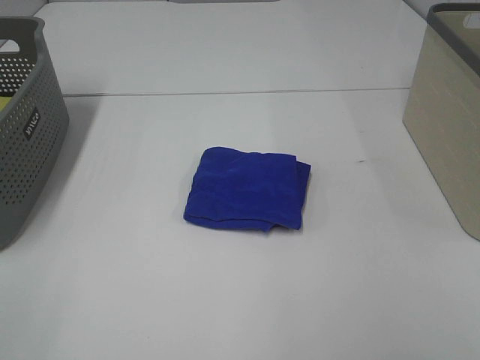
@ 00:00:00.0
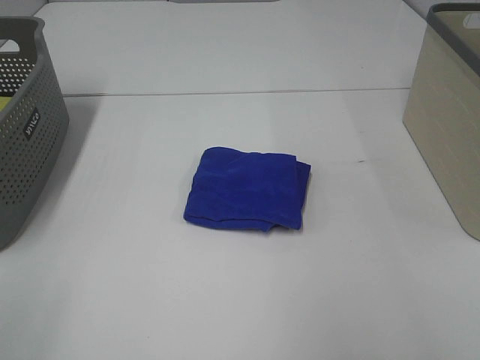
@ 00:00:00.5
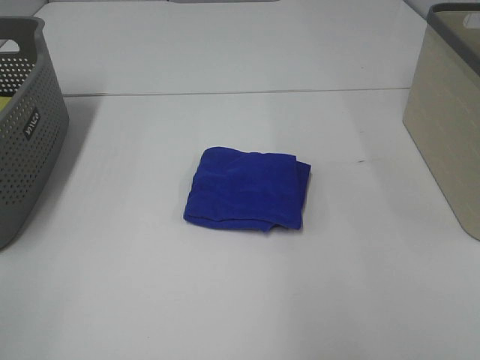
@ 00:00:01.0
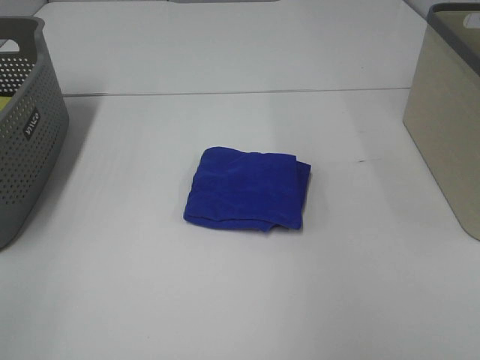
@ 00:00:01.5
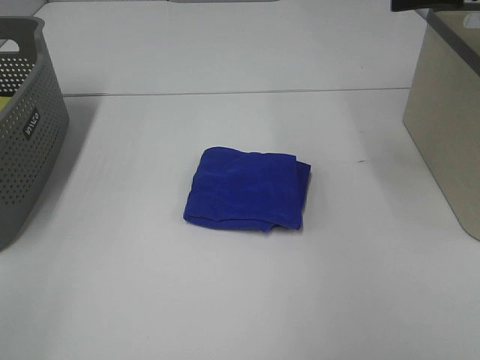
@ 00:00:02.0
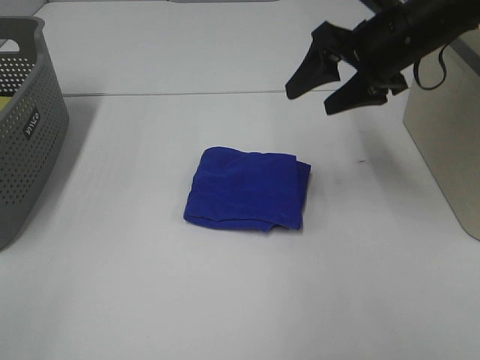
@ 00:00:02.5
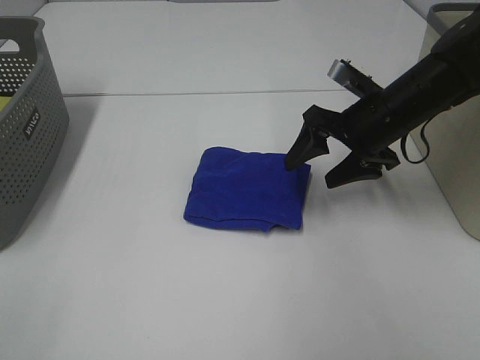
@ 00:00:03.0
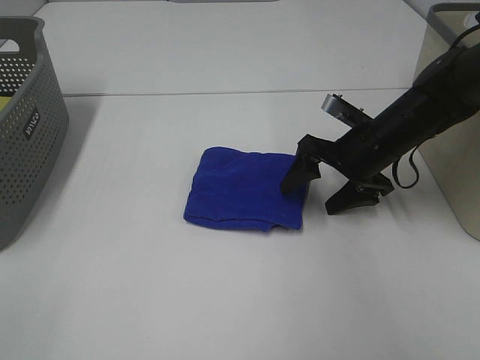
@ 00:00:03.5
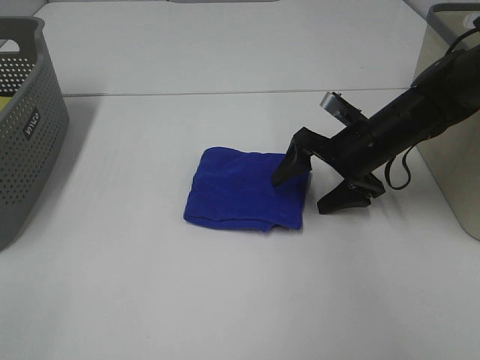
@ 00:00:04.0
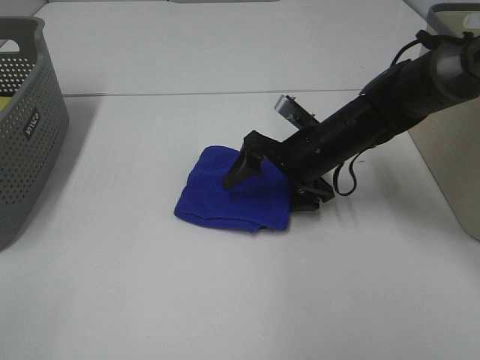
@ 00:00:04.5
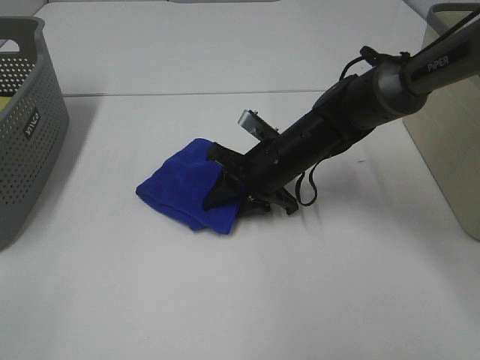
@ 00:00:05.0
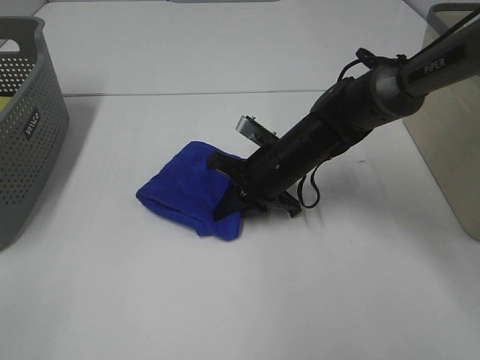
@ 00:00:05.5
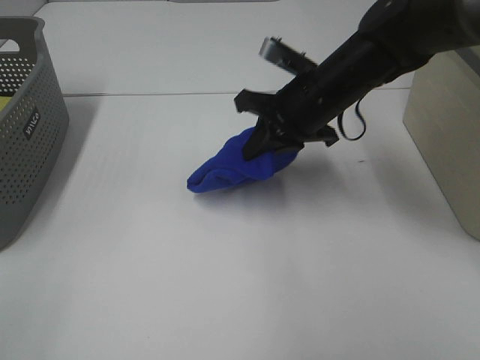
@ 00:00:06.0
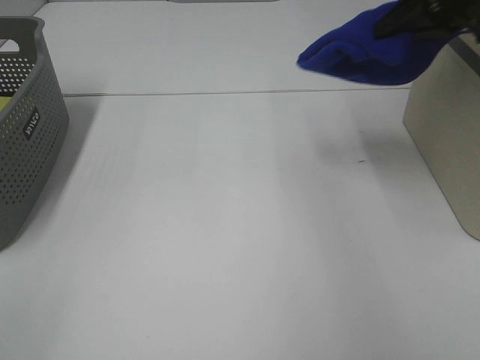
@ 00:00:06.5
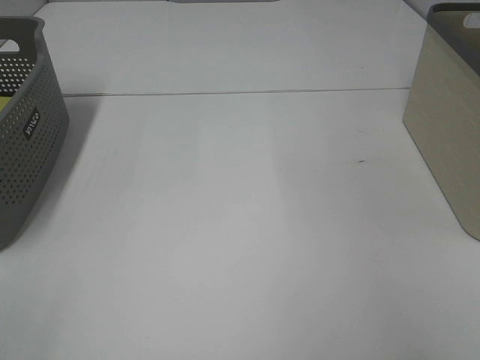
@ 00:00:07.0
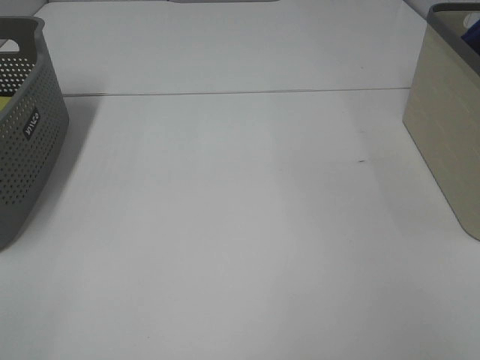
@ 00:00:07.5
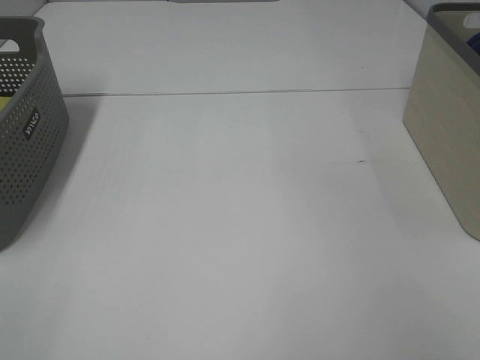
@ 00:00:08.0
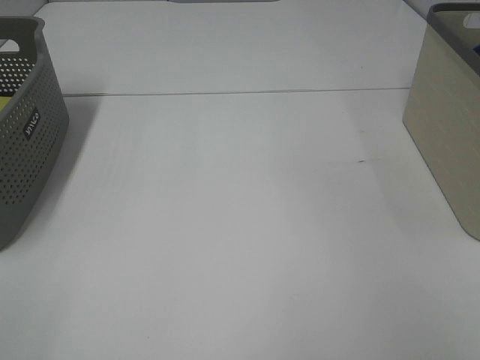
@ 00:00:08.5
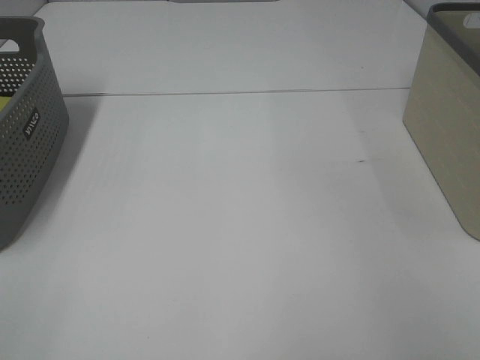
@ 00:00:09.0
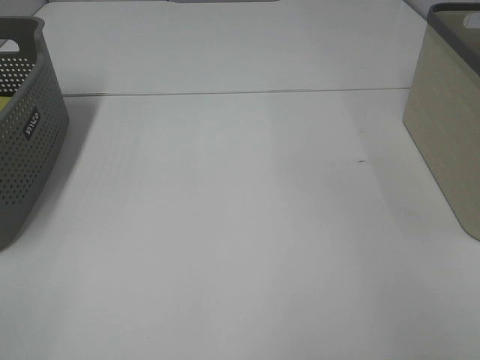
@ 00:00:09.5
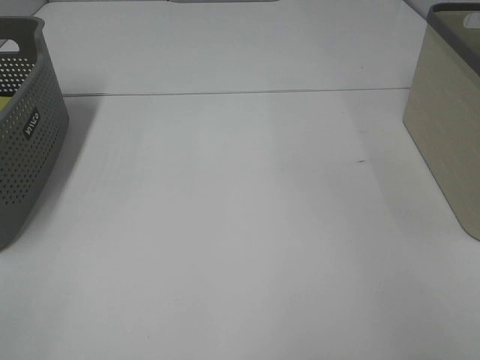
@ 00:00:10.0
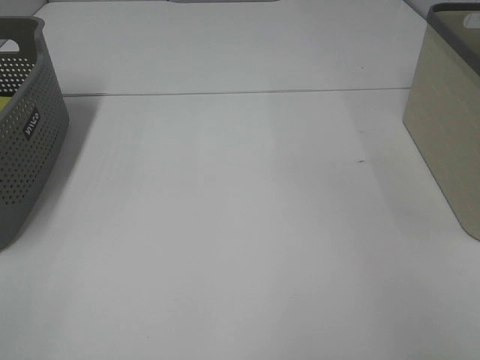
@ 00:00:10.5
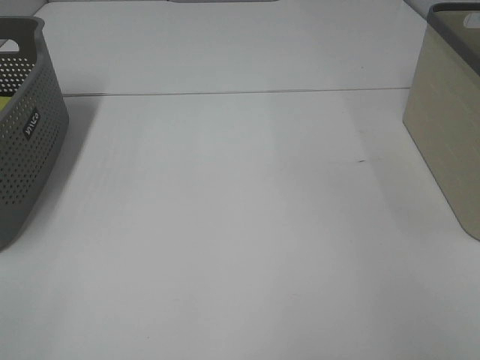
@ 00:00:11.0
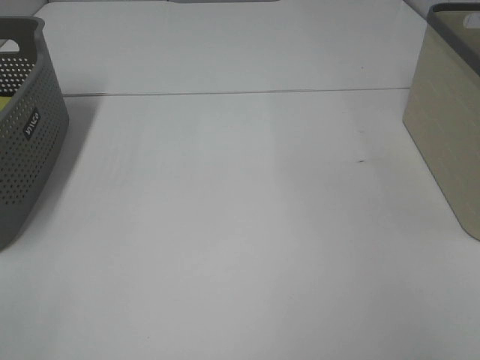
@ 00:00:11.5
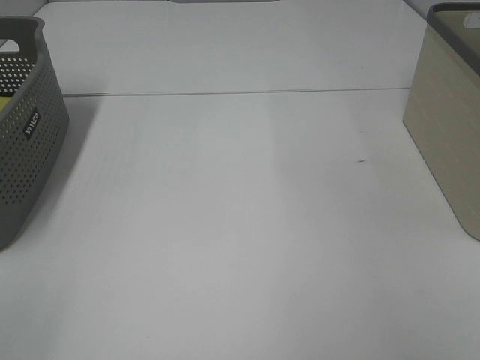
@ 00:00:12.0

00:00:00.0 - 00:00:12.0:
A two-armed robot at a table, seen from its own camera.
Step, 00:00:00.0 - 00:00:05.0: Right hand: grab the folded blue towel.
Step, 00:00:05.5 - 00:00:11.5: Right hand: place the blue towel in right basket.
00:00:00.0 - 00:00:02.0: The right gripper heads forward, covering approximately 40 cm.
00:00:02.0 - 00:00:04.0: The right gripper is displaced downward by approximately 25 cm.
00:00:04.0 - 00:00:06.0: The right gripper is displaced upward and to the left by some 10 cm, and closes up.
00:00:06.0 - 00:00:08.0: The right gripper moves to the right, about 30 cm.

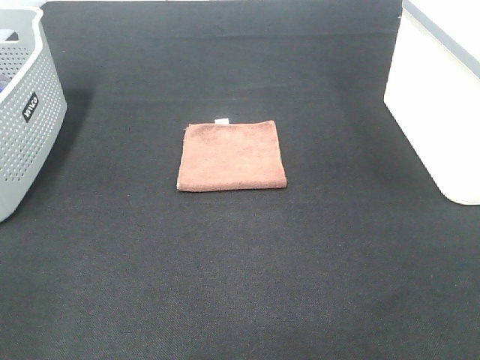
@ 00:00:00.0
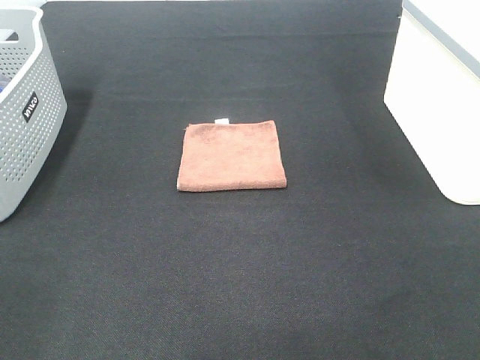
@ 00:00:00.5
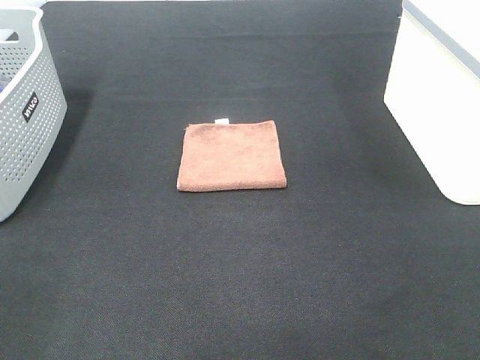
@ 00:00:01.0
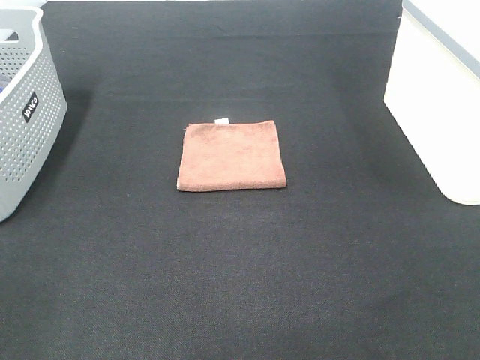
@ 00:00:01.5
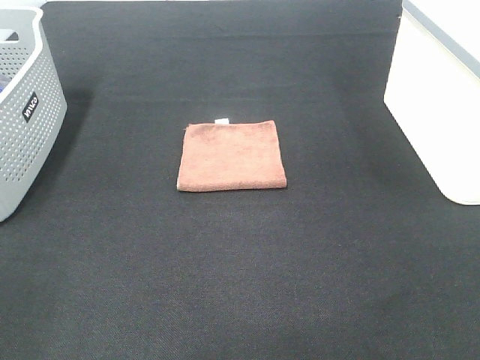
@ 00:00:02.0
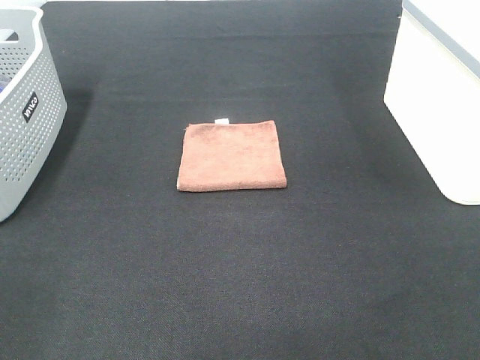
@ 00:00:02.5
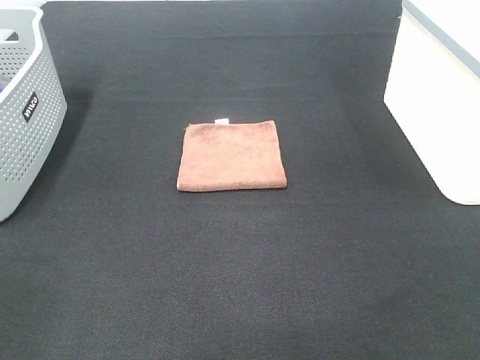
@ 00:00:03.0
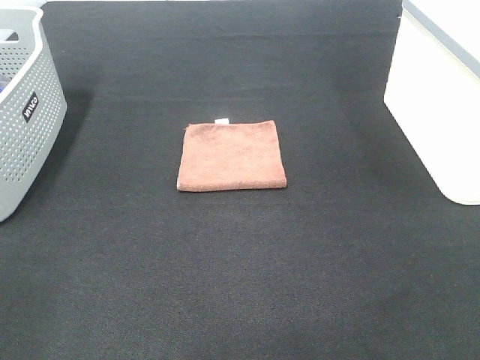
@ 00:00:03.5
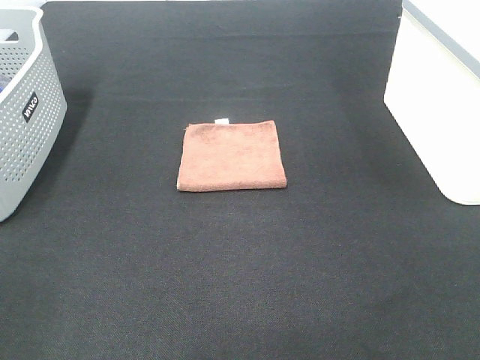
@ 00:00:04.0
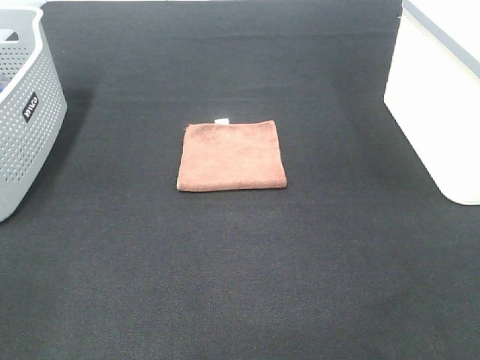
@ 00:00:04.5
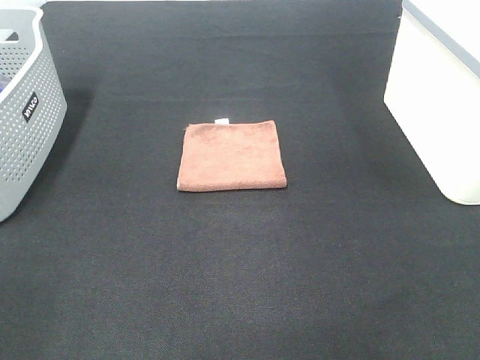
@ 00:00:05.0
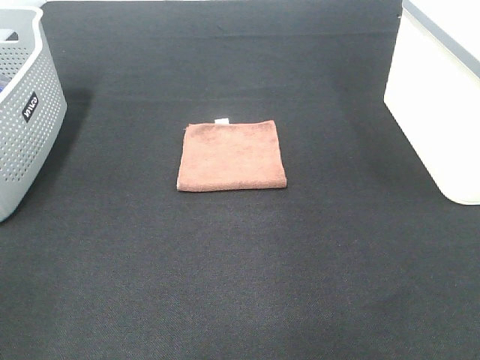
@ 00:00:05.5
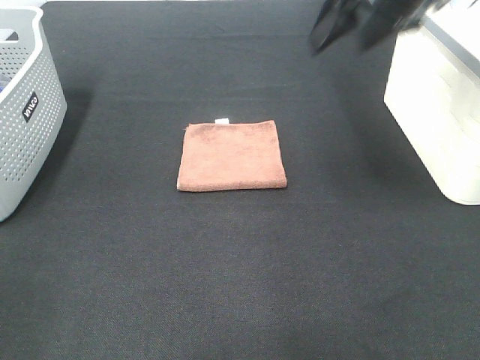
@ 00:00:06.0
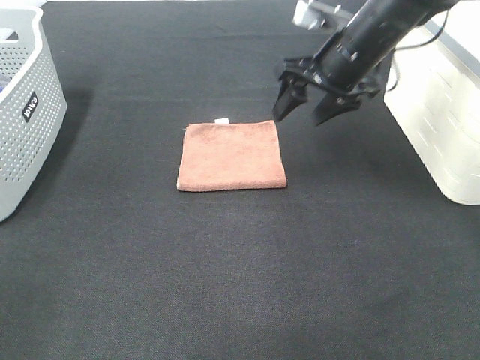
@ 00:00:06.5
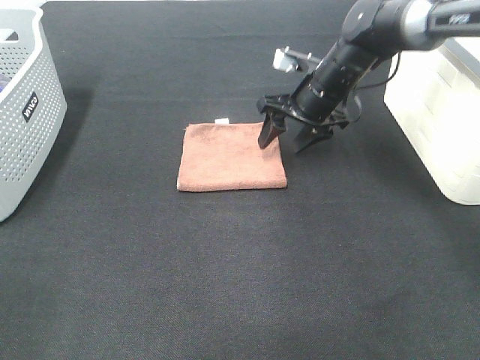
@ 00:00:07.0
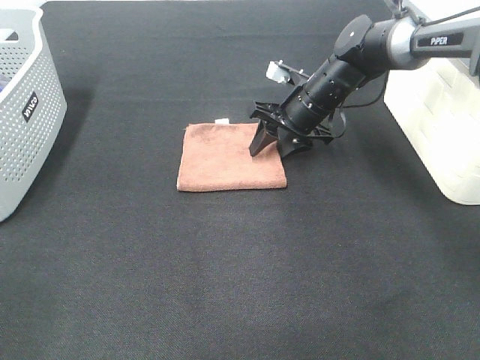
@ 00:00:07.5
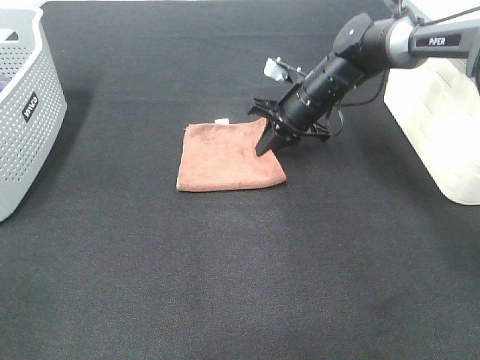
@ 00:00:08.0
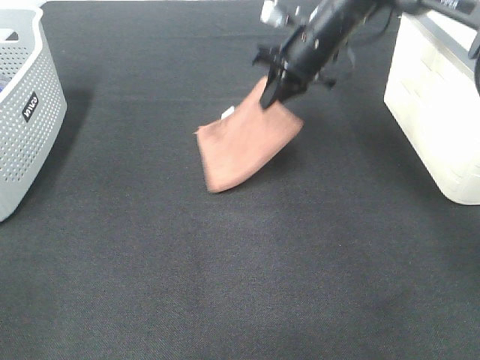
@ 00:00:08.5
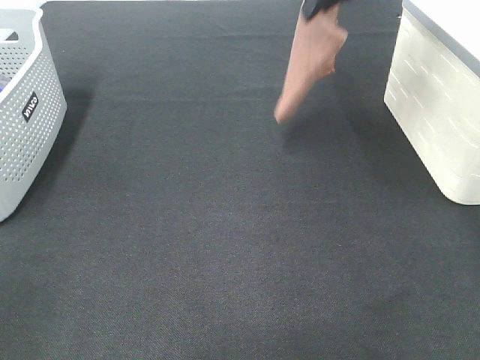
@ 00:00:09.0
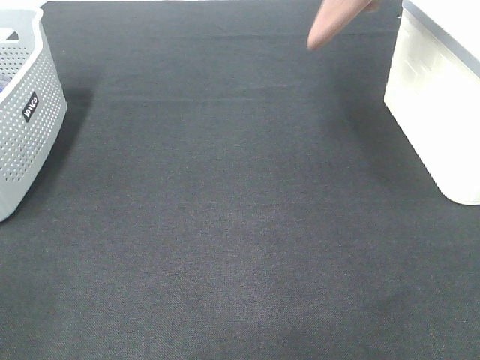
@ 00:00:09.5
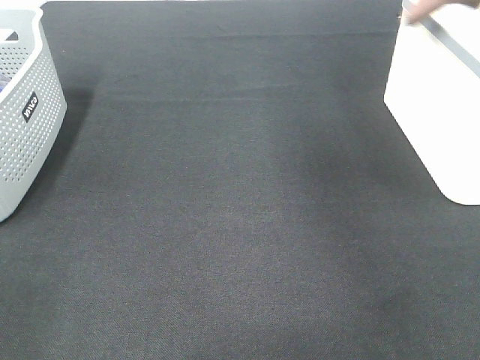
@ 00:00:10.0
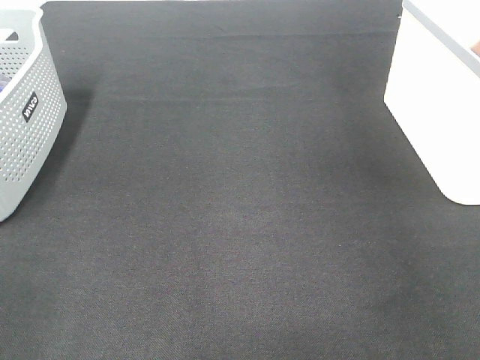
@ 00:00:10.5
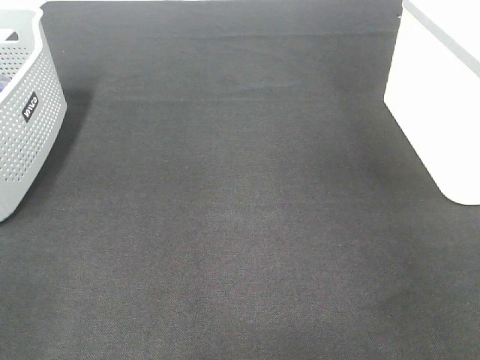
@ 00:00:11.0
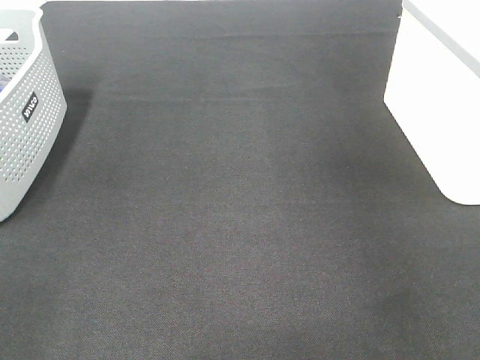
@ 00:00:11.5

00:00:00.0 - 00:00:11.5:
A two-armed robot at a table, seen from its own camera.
Step, 00:00:00.0 - 00:00:08.0: Right hand: grab the folded brown towel.
Step, 00:00:08.5 - 00:00:11.0: Right hand: place the brown towel in right basket.
00:00:00.0 - 00:00:04.0: Neither gripper changes place.
00:00:04.0 - 00:00:06.0: The right gripper goes roughly 35 cm forward.
00:00:06.0 - 00:00:07.5: The right gripper travels downward and forward by some 25 cm.
00:00:07.5 - 00:00:09.5: The right gripper is displaced upward by some 35 cm, and closes its fingers.
00:00:09.5 - 00:00:11.5: The right gripper shifts some 15 cm to the right, and opens up.

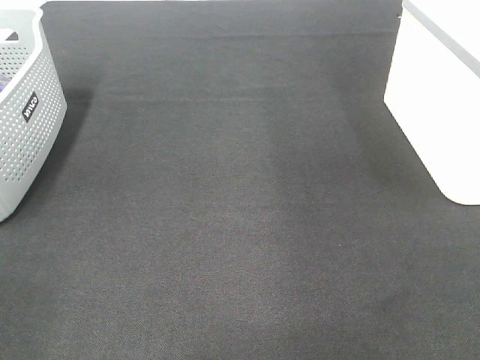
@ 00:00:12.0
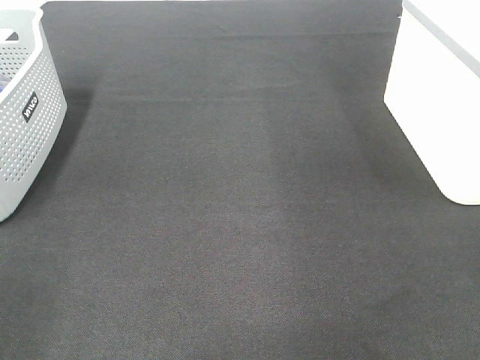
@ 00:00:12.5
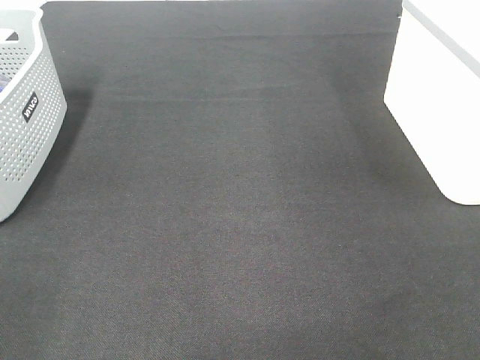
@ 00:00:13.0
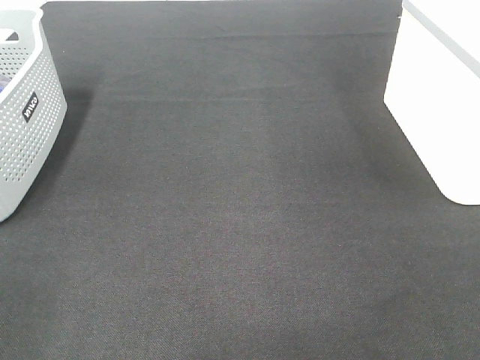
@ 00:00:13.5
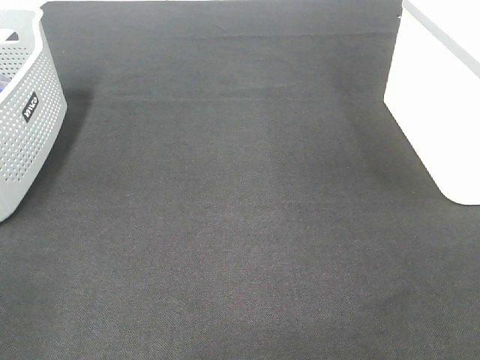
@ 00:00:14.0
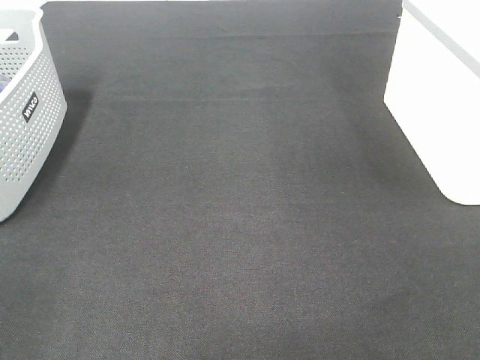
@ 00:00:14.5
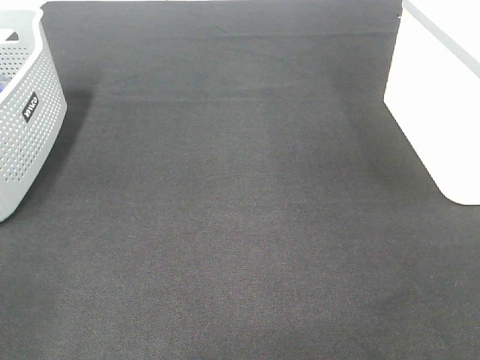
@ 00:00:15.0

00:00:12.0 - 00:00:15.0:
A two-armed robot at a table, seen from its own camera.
00:00:13.5 - 00:00:15.0: Both grippers stay about where they are.
